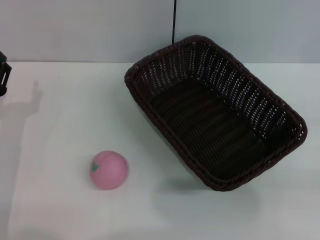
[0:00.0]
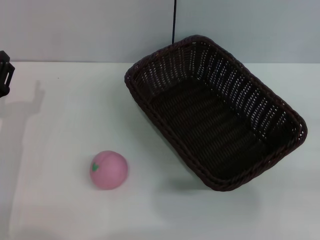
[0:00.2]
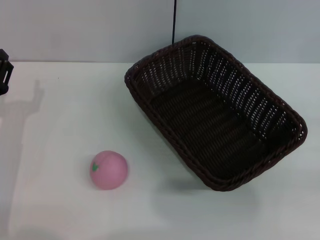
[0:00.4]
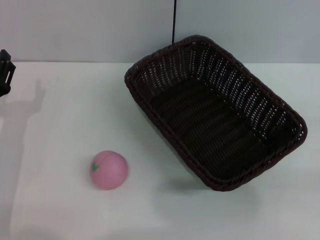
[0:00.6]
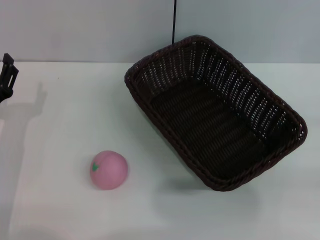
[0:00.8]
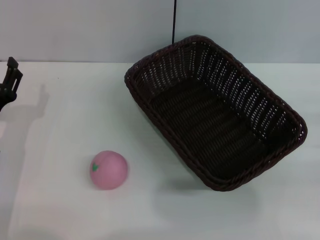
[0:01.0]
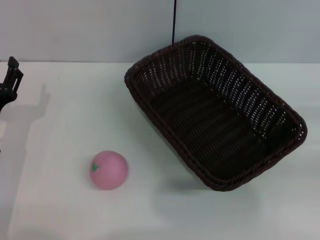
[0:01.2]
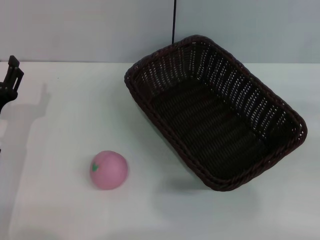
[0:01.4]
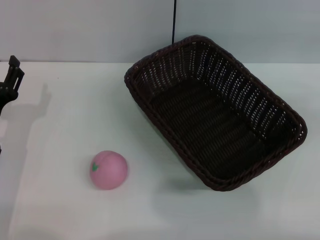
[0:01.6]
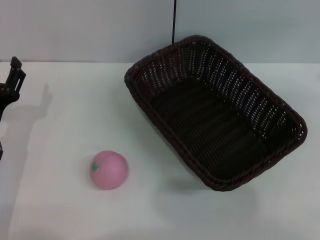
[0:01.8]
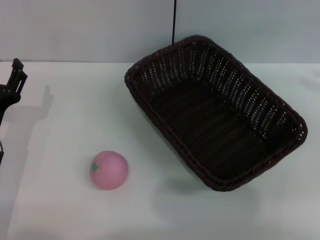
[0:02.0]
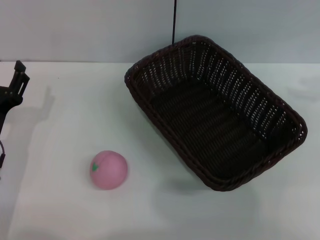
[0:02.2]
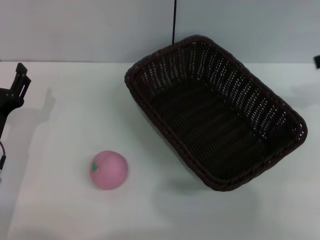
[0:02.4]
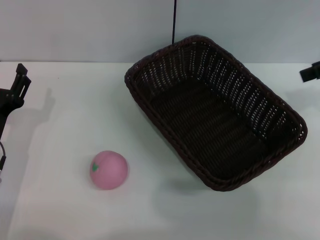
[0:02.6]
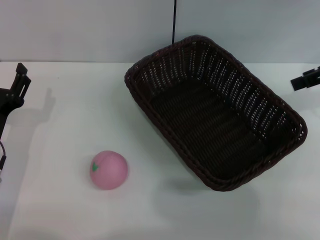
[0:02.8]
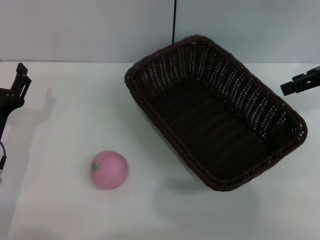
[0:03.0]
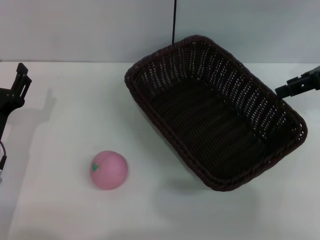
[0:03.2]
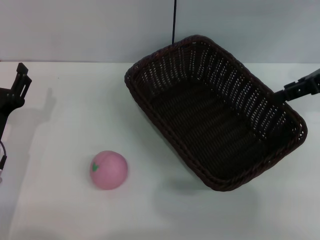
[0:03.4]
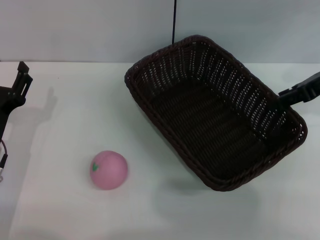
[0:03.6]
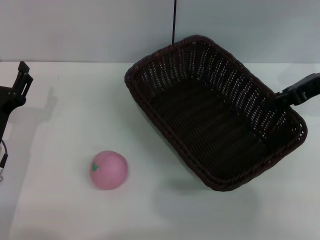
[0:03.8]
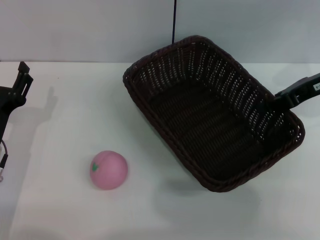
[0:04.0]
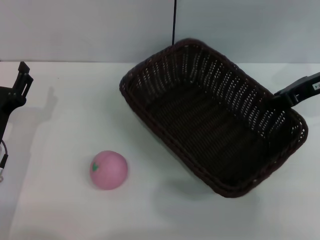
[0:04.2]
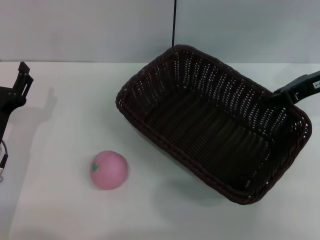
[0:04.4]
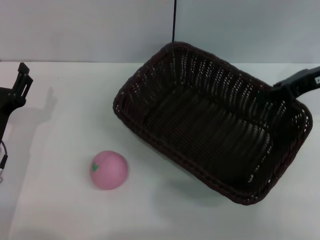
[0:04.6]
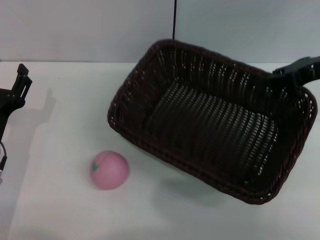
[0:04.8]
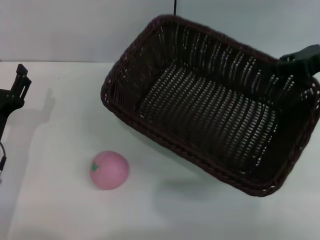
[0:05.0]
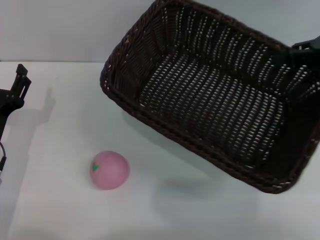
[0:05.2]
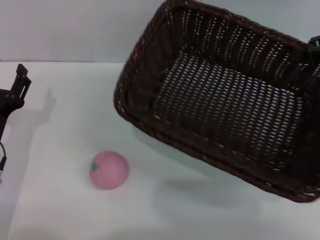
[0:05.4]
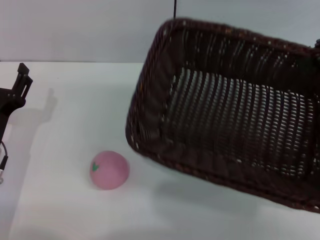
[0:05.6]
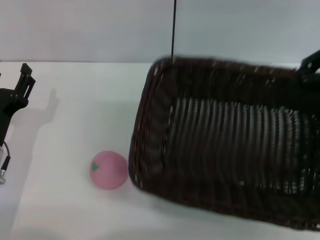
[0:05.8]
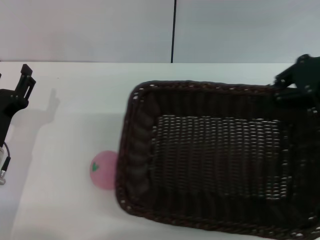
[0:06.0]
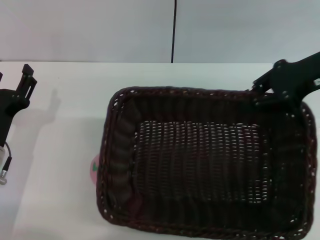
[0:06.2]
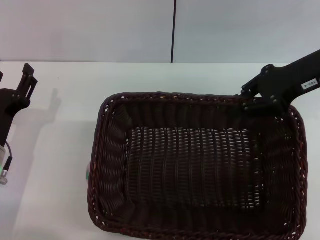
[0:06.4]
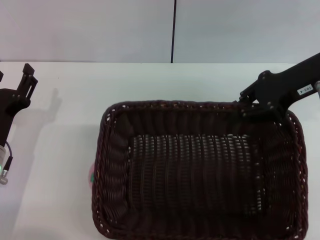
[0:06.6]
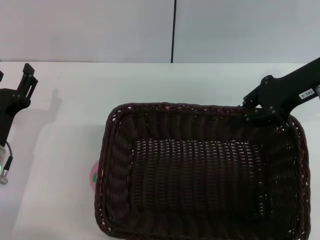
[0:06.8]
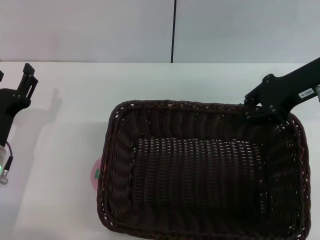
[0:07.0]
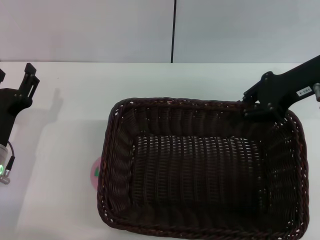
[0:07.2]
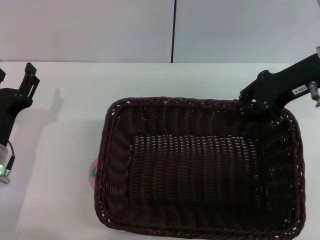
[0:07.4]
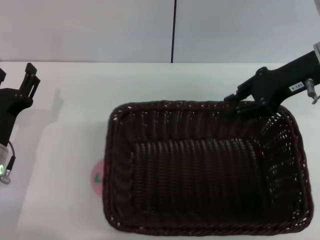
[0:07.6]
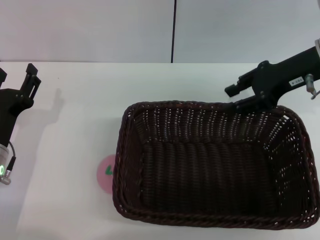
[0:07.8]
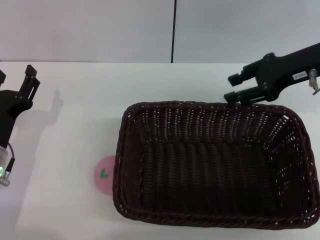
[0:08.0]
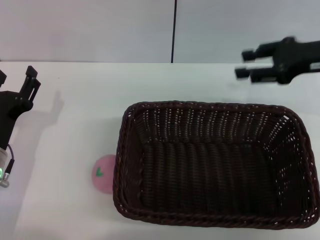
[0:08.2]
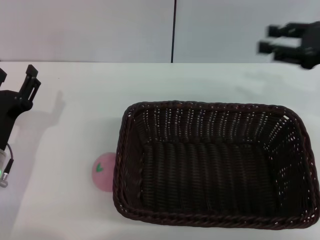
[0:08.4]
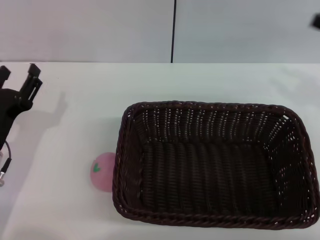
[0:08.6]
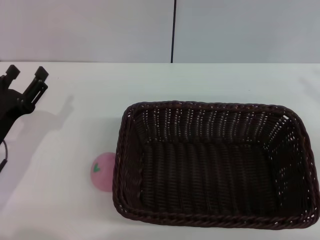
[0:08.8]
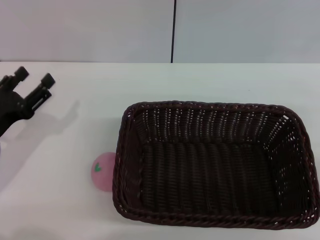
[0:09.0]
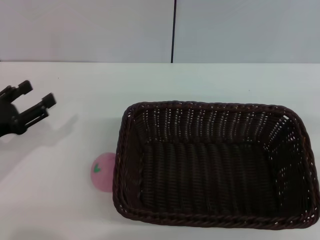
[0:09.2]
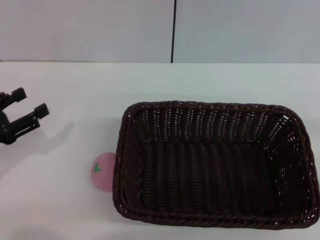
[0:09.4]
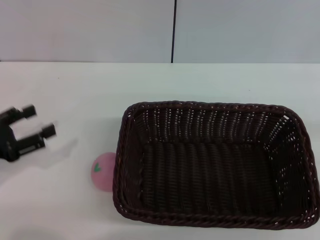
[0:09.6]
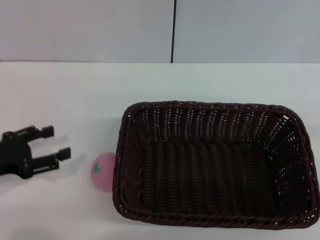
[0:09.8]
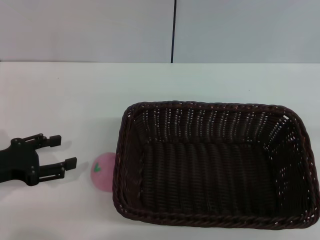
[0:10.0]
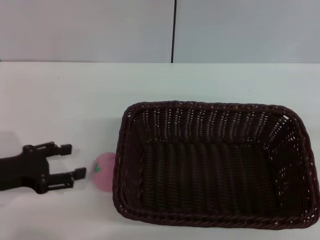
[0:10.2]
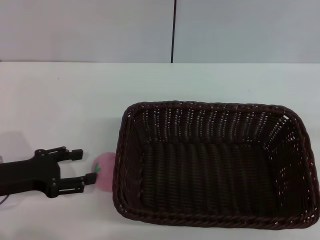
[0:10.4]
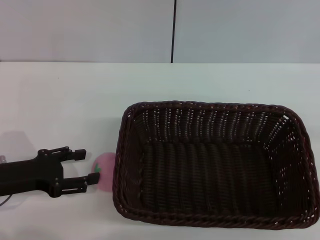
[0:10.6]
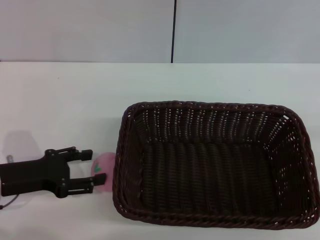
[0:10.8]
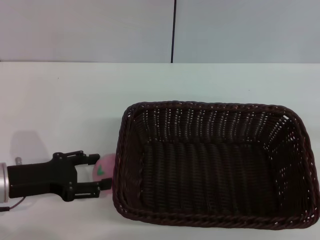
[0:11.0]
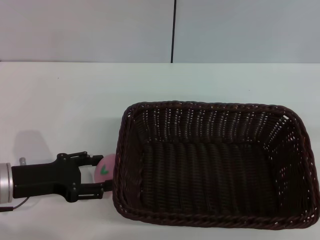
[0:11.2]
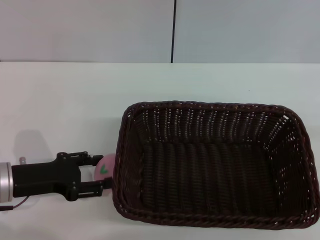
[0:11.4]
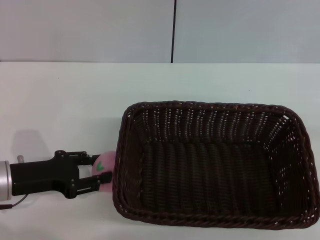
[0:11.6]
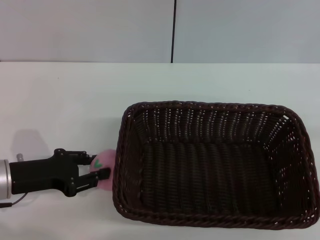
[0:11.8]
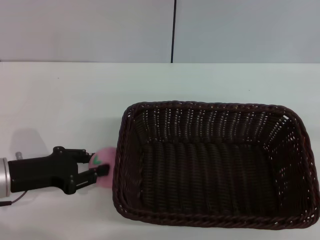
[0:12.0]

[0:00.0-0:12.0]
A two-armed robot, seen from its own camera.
Step, 0:00.0 to 0:05.2: Pick up the dark basket with the right gripper.
Step, 0:05.4 to 0:08.0: Place the dark basket in the center of view with the right gripper.
0:01.6 to 0:03.0: The right gripper goes some 15 cm to the left and forward.
0:03.0 to 0:04.4: The right gripper moves approximately 5 cm, and closes.
0:04.4 to 0:06.0: The right gripper shifts about 5 cm upward.
0:06.0 to 0:07.6: The right gripper moves roughly 5 cm.
0:07.6 to 0:09.0: The right gripper heads to the right and backward, covering roughly 25 cm, and opens. The left gripper moves about 5 cm.
0:10.4 to 0:12.0: The left gripper closes up.

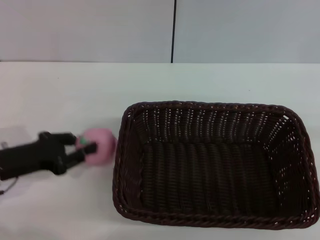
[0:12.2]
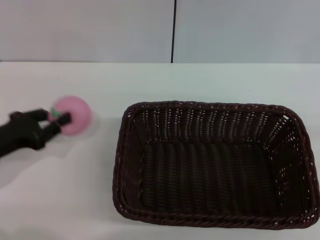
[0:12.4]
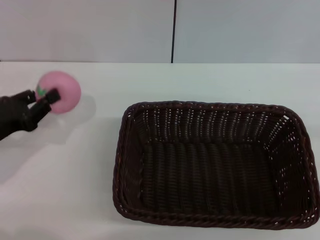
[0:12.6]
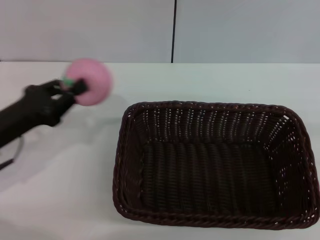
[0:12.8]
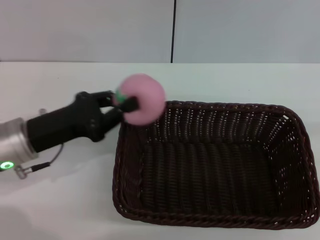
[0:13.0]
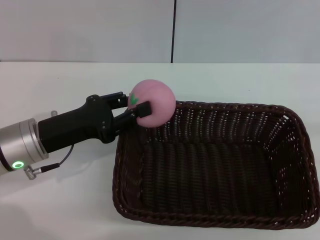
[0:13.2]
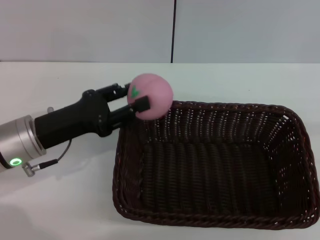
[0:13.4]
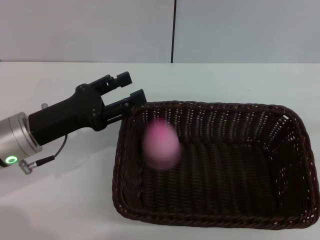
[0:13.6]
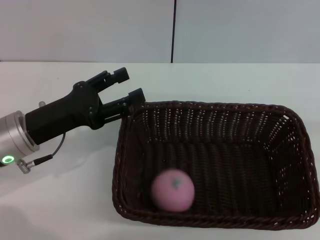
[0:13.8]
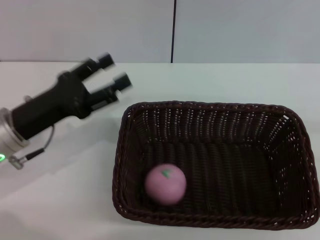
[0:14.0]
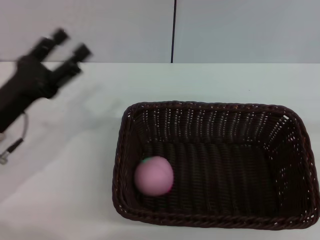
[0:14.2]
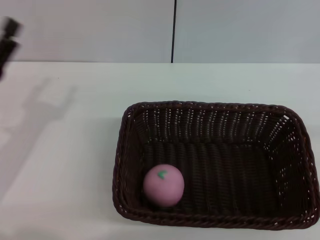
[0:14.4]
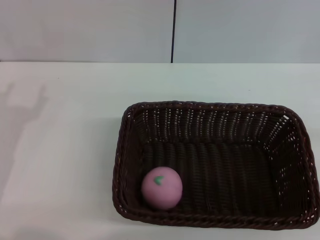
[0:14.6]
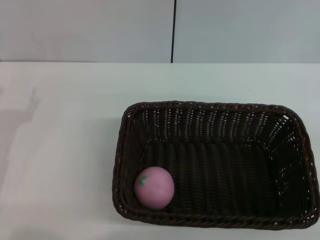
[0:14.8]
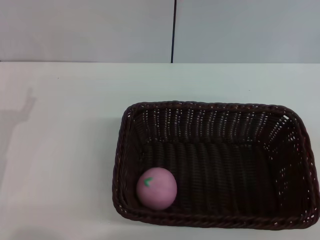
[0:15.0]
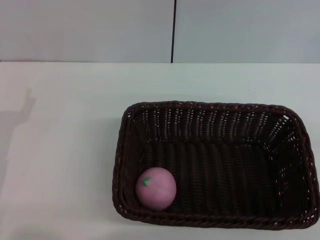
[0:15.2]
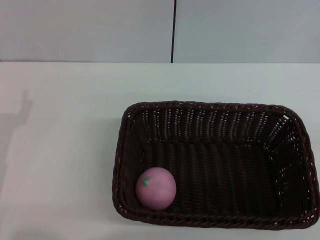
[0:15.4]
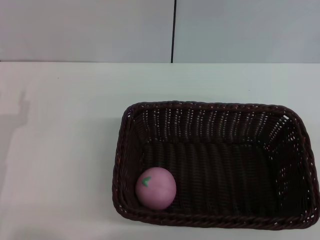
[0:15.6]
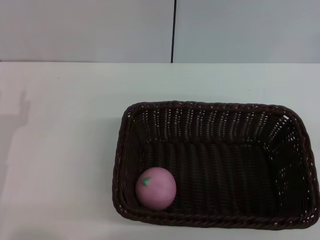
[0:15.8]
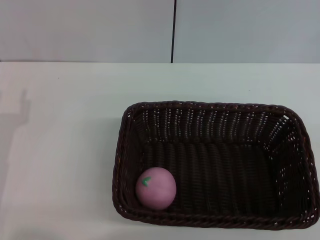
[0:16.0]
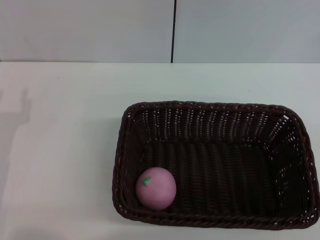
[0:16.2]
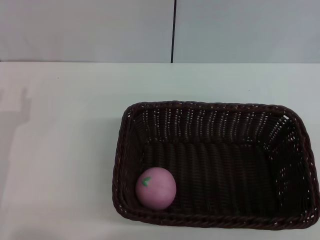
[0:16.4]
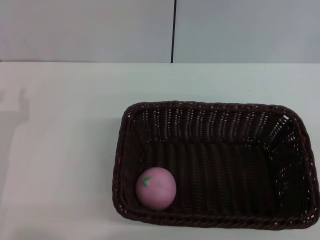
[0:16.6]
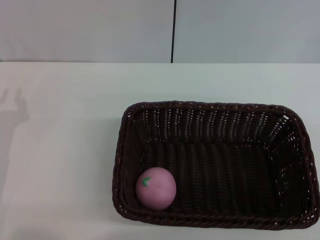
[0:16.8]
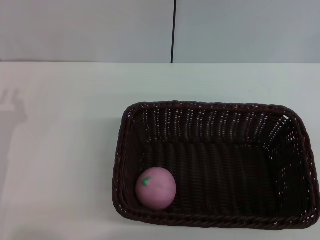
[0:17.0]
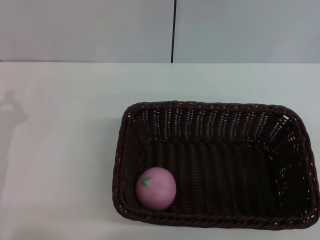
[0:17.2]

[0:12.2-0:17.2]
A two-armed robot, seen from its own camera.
Step, 0:12.8 to 0:13.8: Place the peach into the basket with the left gripper.
0:12.2 to 0:13.8: The left gripper travels to the right by roughly 5 cm, and opens.
0:13.8 to 0:15.6: The left gripper moves to the left and backward, approximately 10 cm.
